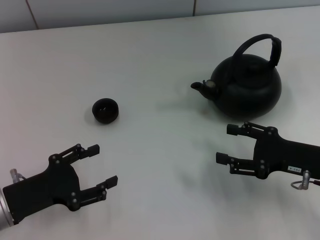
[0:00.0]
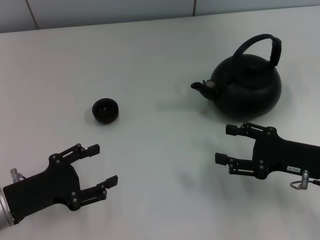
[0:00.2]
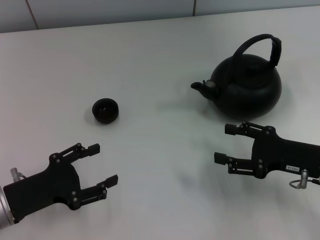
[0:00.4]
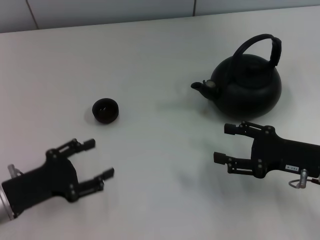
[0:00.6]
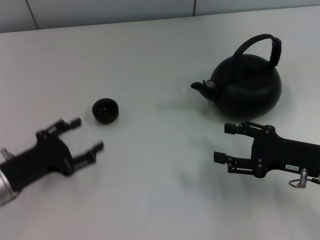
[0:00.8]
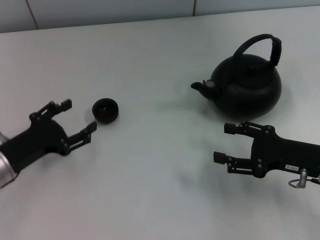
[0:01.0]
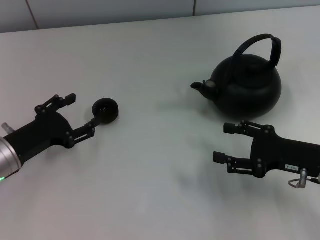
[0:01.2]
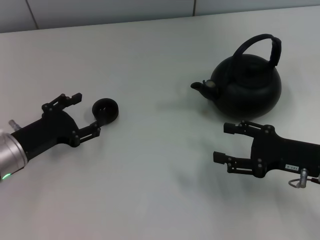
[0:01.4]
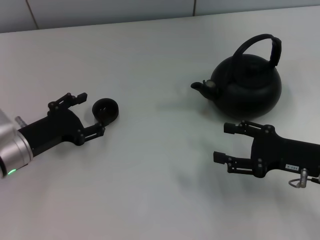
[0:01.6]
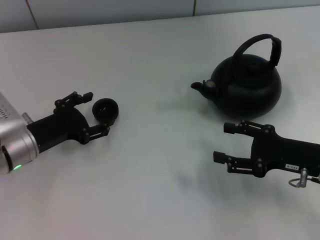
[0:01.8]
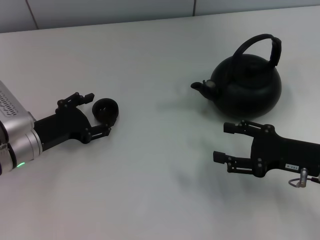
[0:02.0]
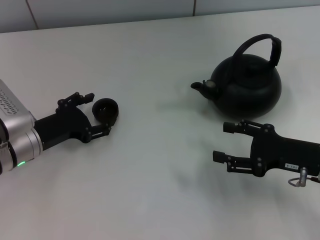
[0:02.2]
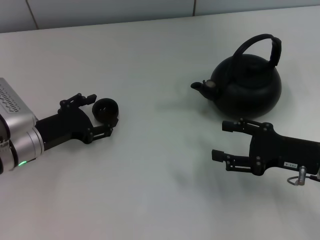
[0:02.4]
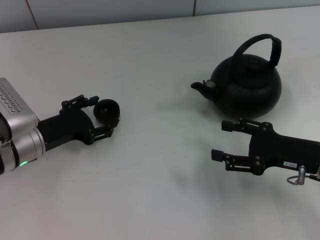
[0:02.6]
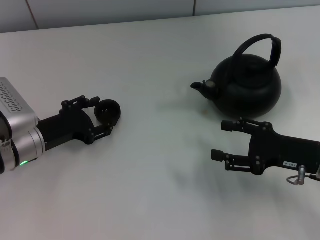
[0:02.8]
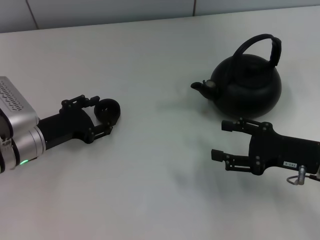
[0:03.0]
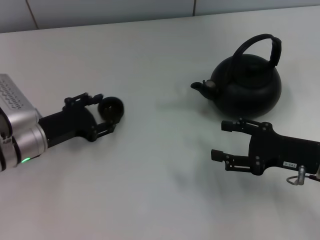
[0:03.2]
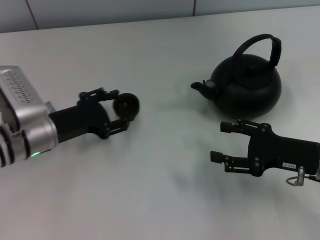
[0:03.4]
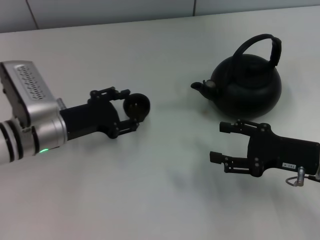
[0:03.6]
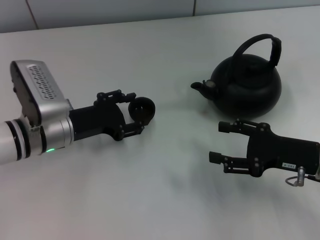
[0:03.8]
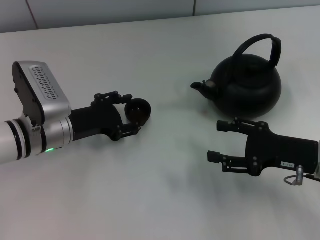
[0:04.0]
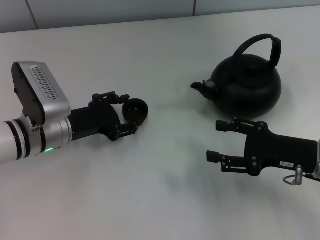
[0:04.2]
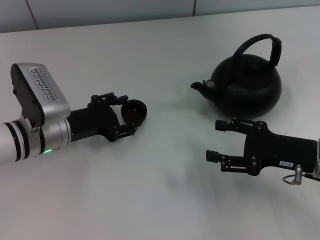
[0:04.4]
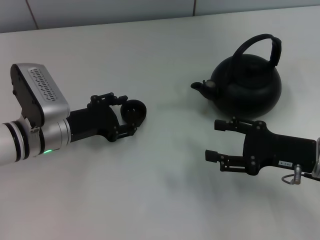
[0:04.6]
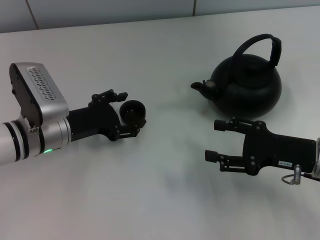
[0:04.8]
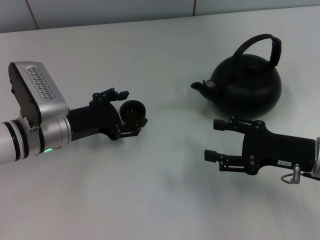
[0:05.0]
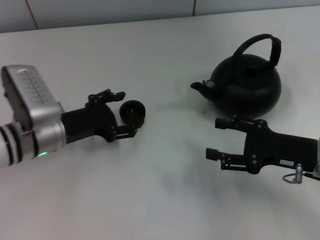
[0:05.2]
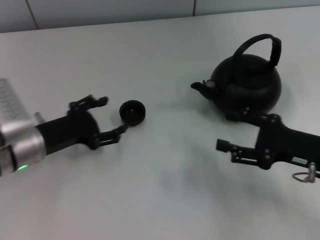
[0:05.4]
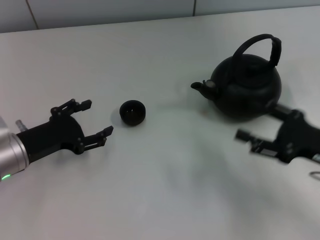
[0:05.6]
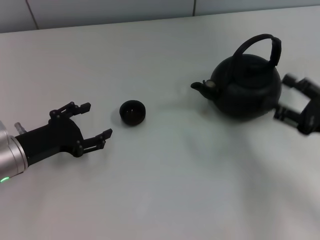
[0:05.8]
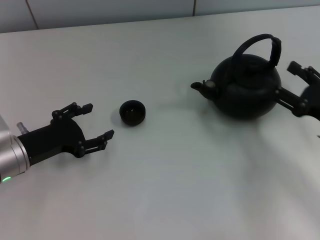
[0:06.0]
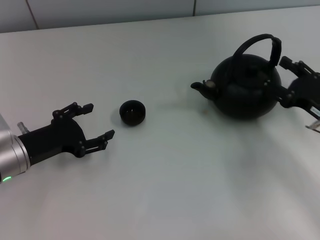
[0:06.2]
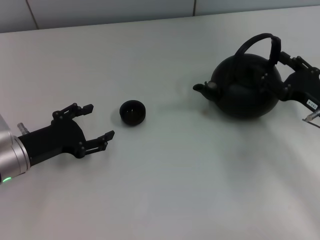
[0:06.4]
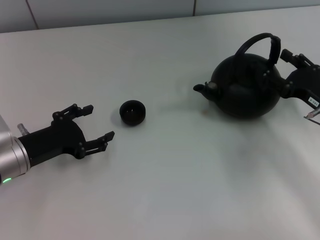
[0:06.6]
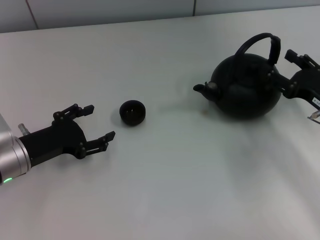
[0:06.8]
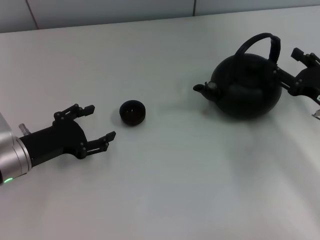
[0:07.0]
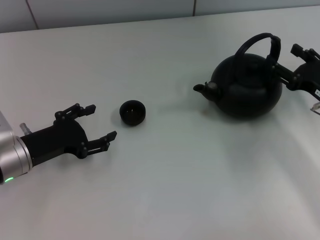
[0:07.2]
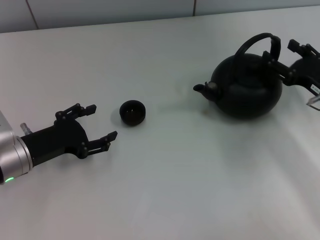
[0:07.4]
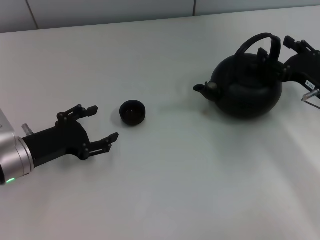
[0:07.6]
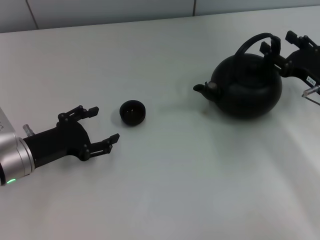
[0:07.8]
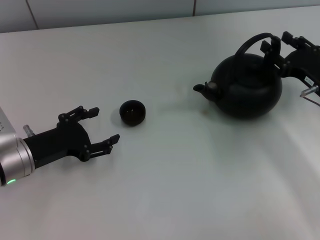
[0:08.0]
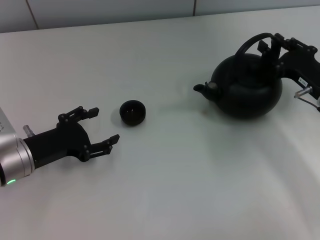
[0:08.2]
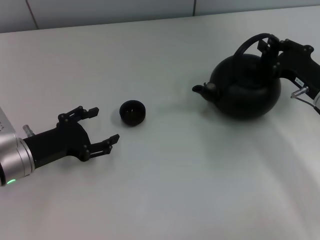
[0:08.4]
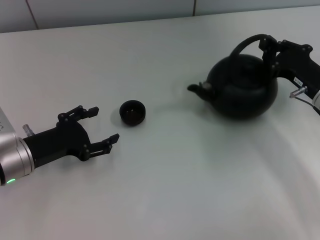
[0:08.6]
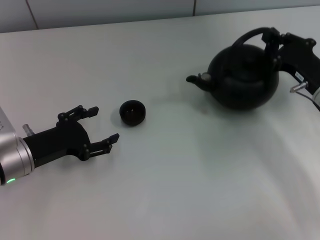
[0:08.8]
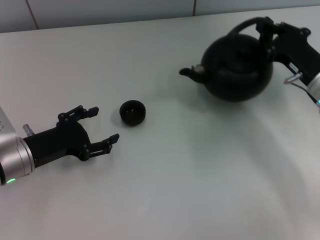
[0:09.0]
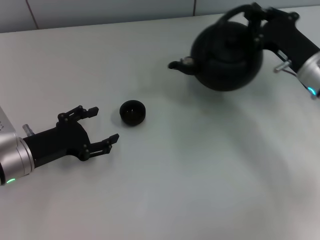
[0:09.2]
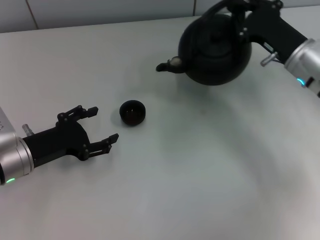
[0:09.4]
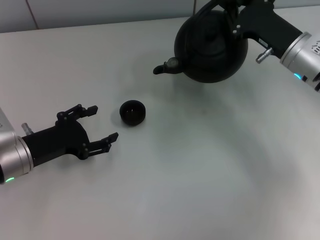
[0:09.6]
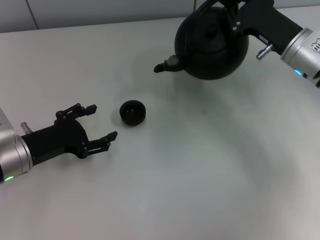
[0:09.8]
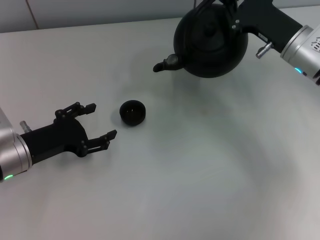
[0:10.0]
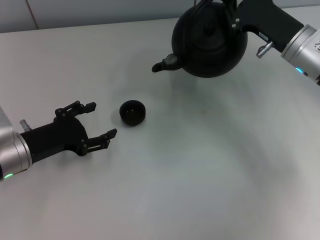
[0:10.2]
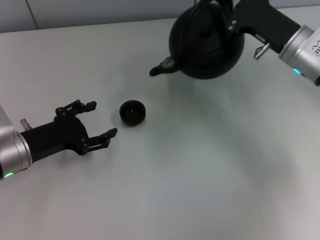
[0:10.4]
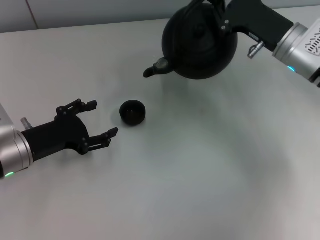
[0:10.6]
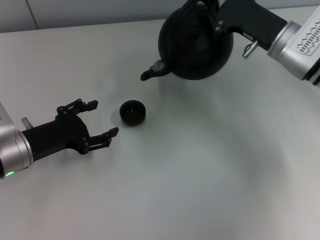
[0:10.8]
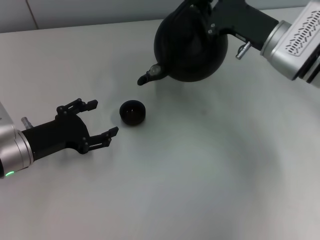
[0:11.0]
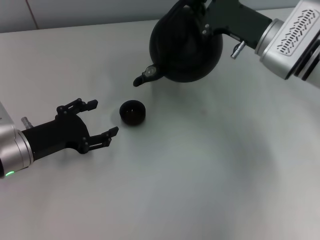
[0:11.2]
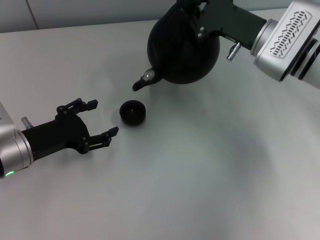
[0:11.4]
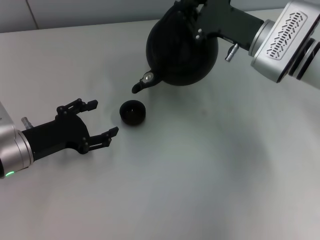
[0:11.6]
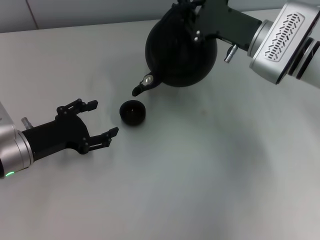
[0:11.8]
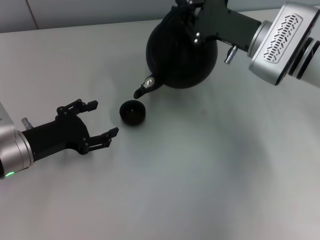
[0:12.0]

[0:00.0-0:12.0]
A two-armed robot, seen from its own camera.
Task of the whole recording: Grasp the handle of the teapot with one hand and pour tea into the teacup.
Step, 0.0 to 4.0 s: Pick up the teacup with the left gripper.
Step, 4.2 to 5.8 s: Place the teacup in the center of view with the left gripper.
Step, 6.0 to 9.4 s: Pick up the teapot with the right gripper.
0.0 to 1.6 s: The left gripper moves forward, approximately 10 cm.
1.6 to 3.0 s: The left gripper closes its fingers.
3.0 to 4.4 s: The grippers stay close to where they were, moving slightly.
4.4 to 6.0 s: The left gripper shifts approximately 5 cm to the left, and opens up.
6.0 to 7.6 s: The right gripper moves forward, roughly 5 cm.
7.6 to 9.0 s: The right gripper closes.
9.0 to 10.4 s: The right gripper shifts by approximately 5 cm.
10.4 to 12.0 s: The grippers stay close to where they were, moving slightly.

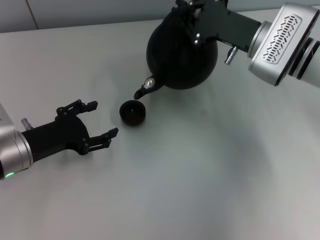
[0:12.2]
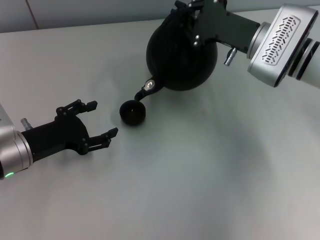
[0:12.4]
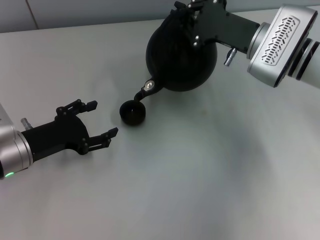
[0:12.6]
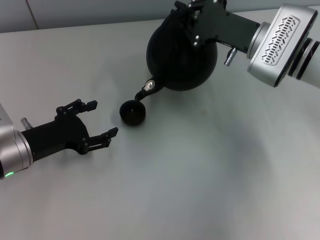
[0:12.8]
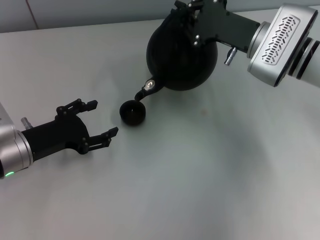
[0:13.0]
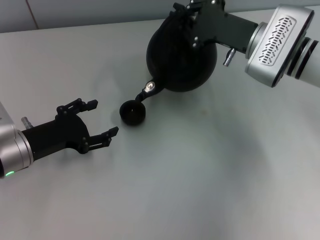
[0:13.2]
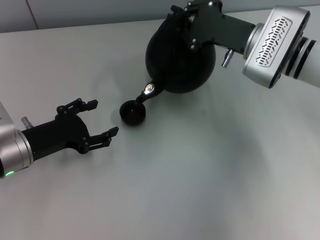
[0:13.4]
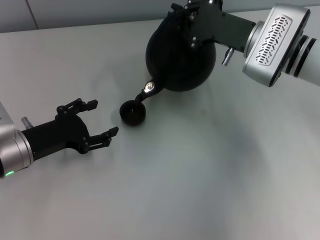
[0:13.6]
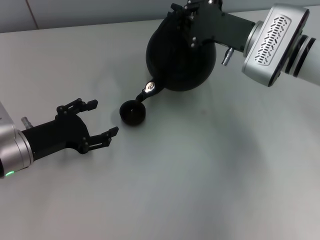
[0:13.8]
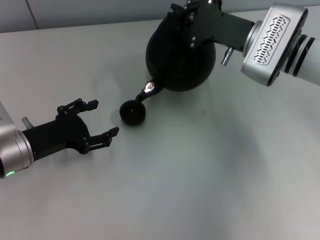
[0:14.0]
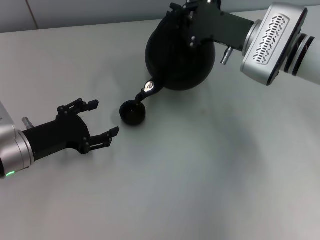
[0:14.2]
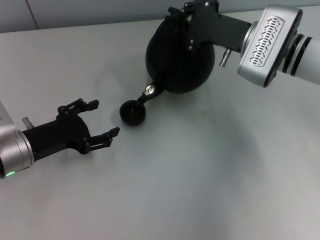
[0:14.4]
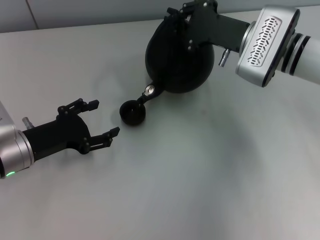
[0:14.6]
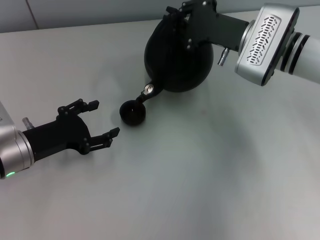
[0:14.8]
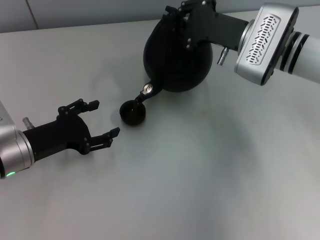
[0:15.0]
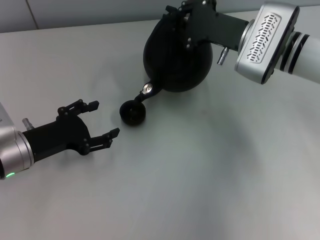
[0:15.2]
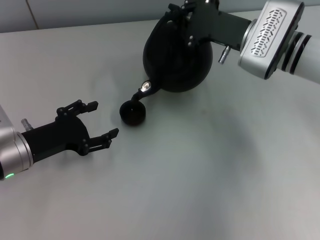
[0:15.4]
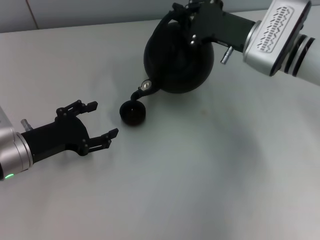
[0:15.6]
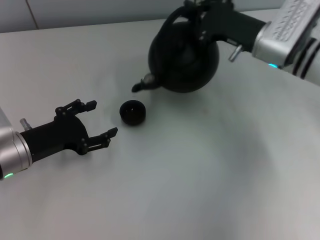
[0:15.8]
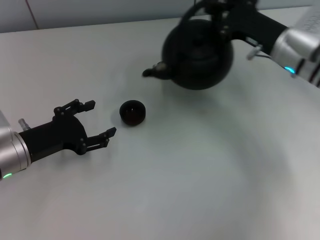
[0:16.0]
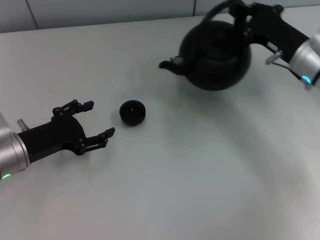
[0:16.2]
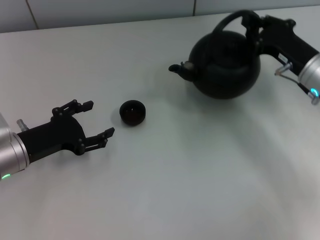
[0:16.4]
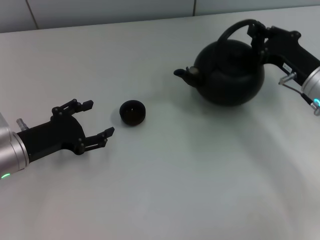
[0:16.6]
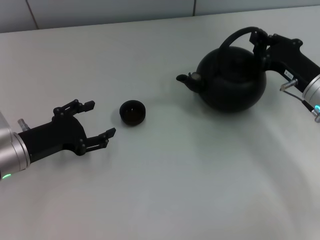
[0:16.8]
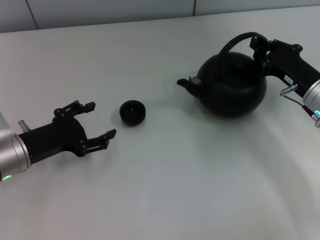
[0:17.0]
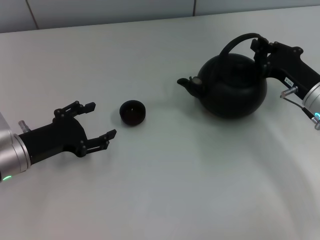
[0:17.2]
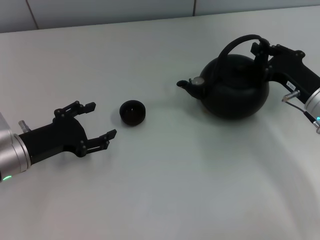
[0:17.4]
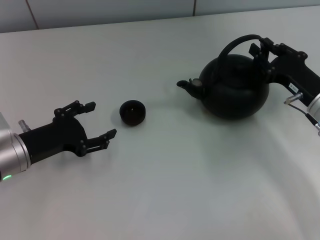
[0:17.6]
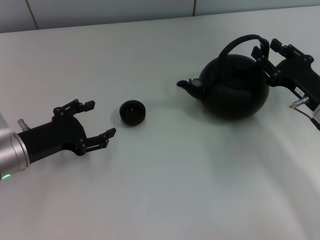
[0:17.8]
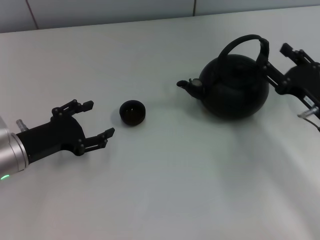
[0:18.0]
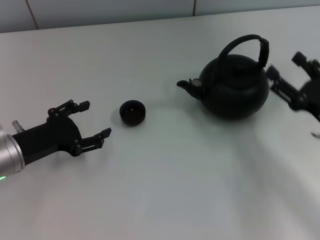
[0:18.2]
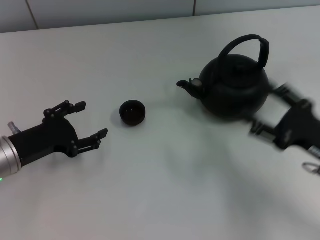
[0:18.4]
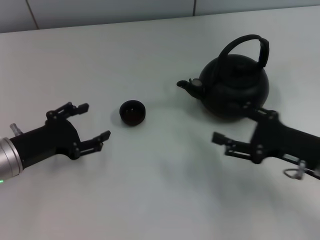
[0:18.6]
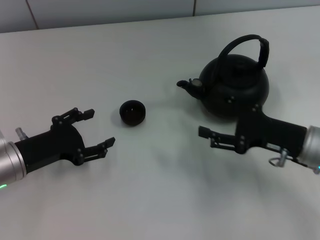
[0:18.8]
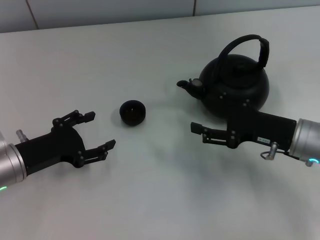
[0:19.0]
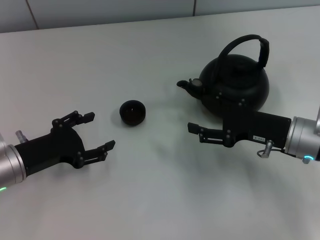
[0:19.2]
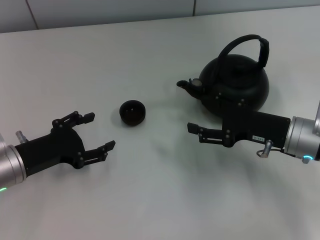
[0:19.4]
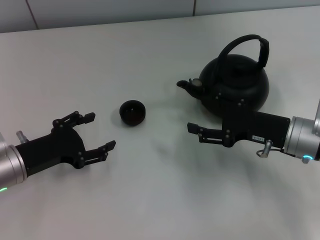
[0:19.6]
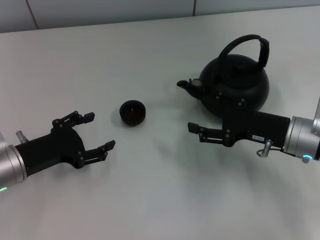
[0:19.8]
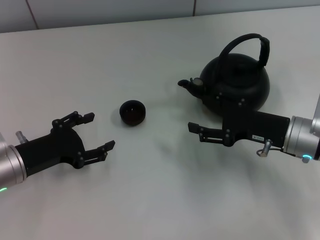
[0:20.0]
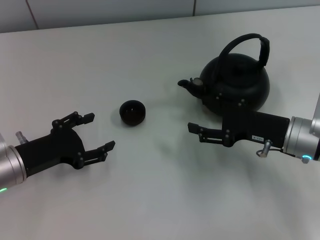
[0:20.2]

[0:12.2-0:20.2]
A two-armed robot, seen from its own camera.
Task of the whole recording: Grasp the handle of the teapot with one hand and pour tea into the teacup.
Step, 16.4 to 18.0 s: Put down the teapot with the right gripper.
12.2 to 13.8 s: Neither gripper changes place.
13.8 to 15.4 s: The two grippers keep their place.
15.4 to 17.0 s: The right gripper travels to the right, backward and downward by approximately 15 cm.
17.0 to 18.6 s: The right gripper travels backward by approximately 10 cm, and opens up.
18.6 to 20.2 s: The right gripper ends up approximately 5 cm from where it was.

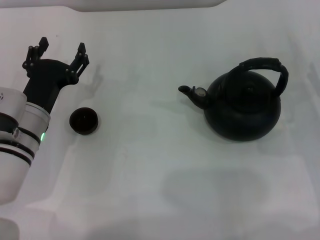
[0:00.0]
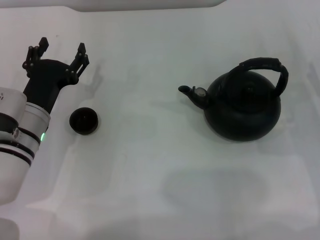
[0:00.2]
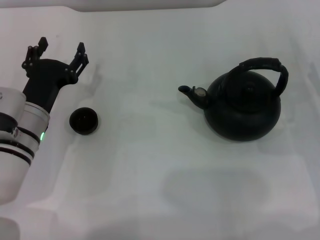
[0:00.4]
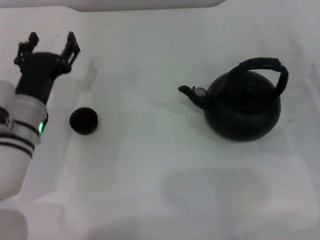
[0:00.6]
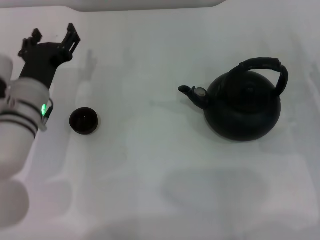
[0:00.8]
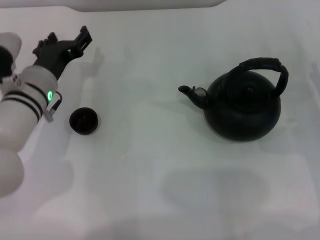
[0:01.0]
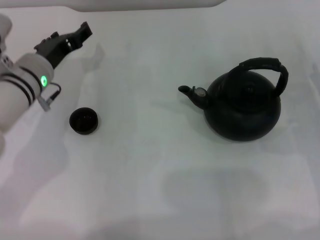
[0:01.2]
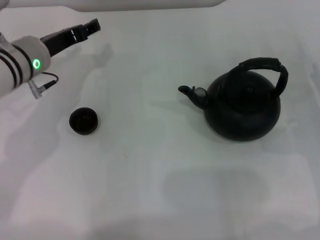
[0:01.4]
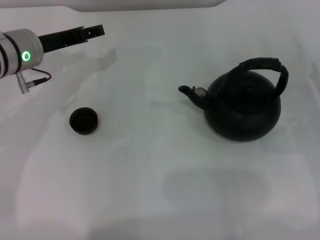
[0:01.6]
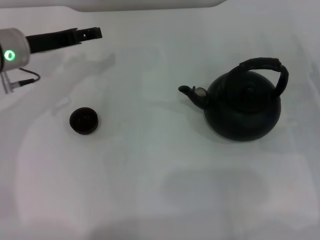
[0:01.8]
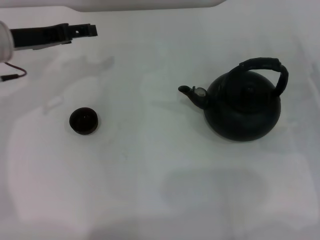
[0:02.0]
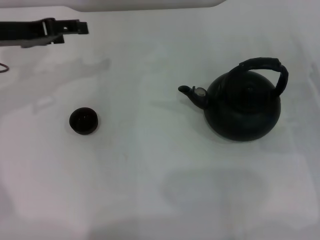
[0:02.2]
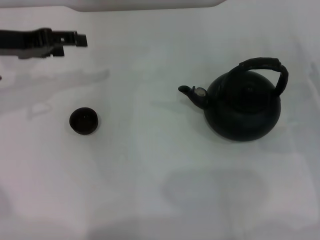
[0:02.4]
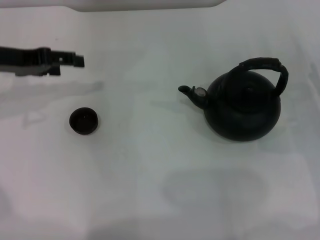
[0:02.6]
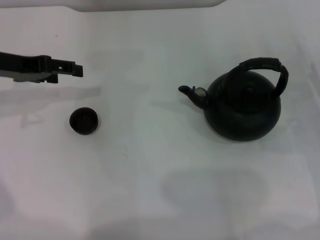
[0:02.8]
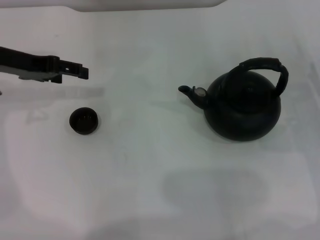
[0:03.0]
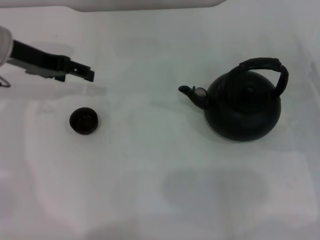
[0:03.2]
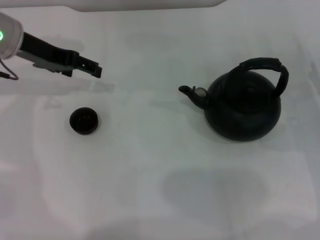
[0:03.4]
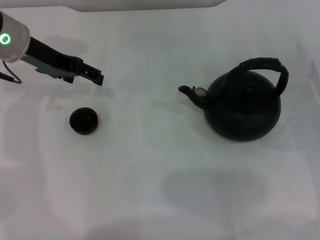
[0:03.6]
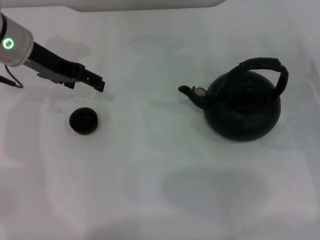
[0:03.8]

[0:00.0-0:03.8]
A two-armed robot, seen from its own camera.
Task of the whole recording: Grasp the handle of the teapot with one hand and pour tea into the teacup.
0.0 to 1.2 s: The left gripper goes some 5 cm forward.
1.2 to 2.6 s: The left gripper is displaced upward and to the left by roughly 15 cm.
2.6 to 3.8 s: The left gripper goes about 5 cm to the right.
